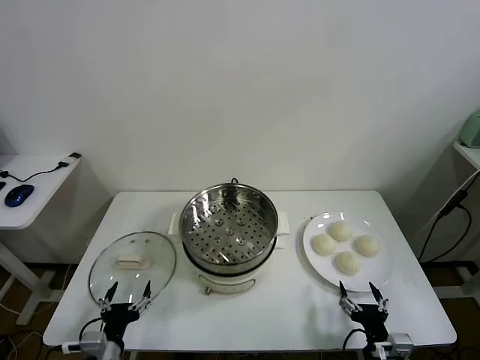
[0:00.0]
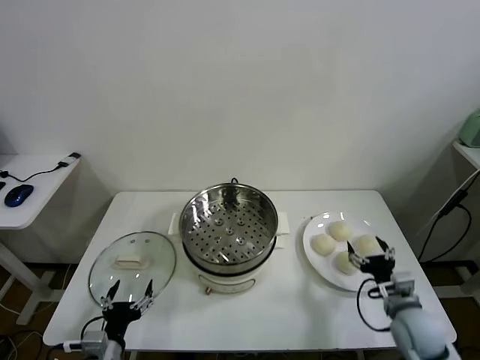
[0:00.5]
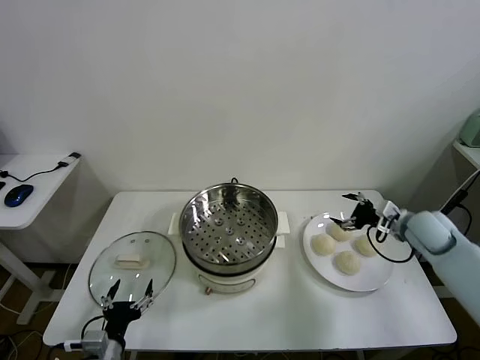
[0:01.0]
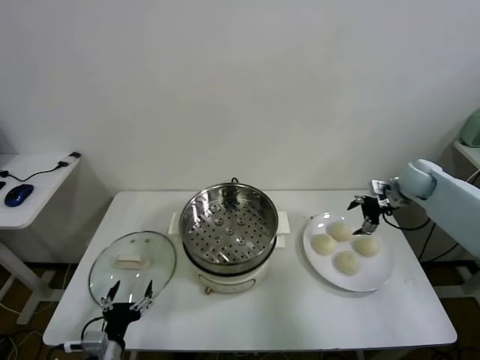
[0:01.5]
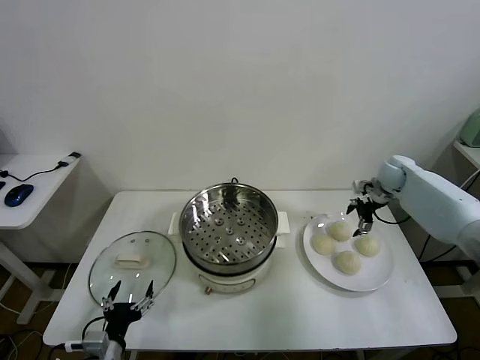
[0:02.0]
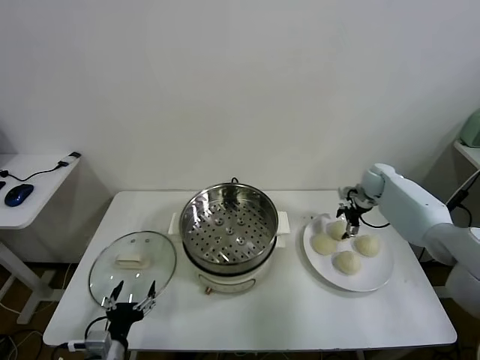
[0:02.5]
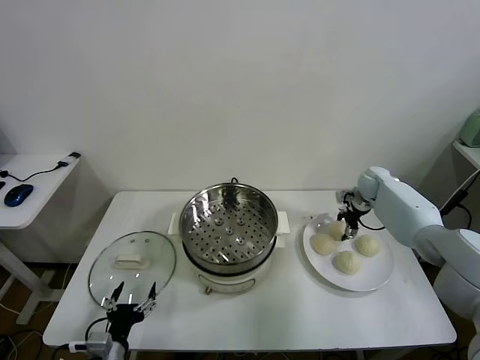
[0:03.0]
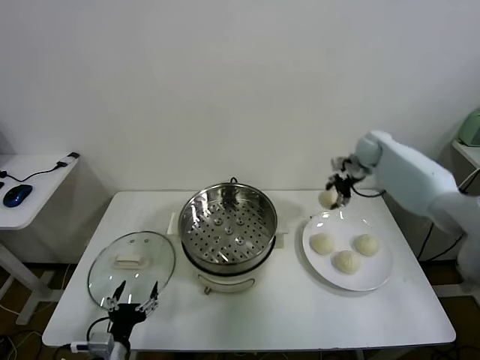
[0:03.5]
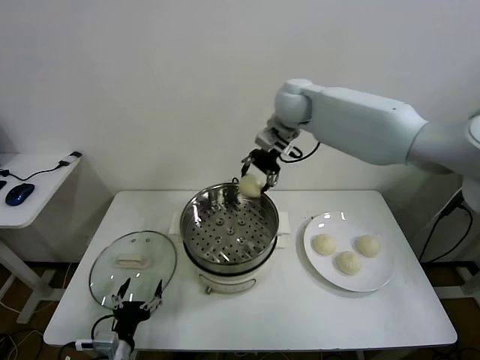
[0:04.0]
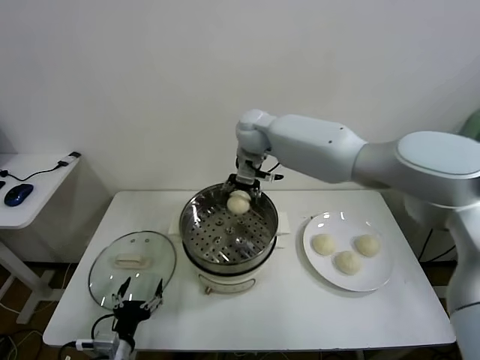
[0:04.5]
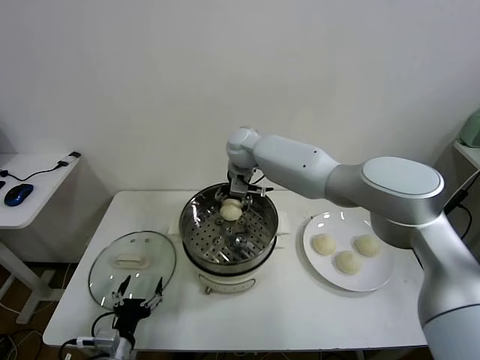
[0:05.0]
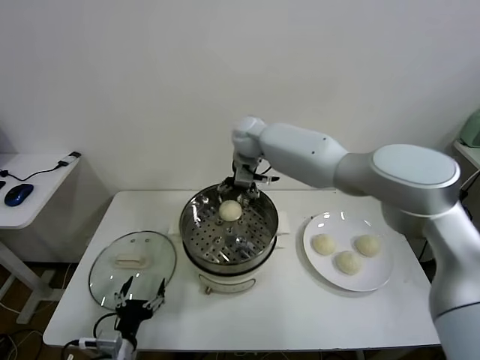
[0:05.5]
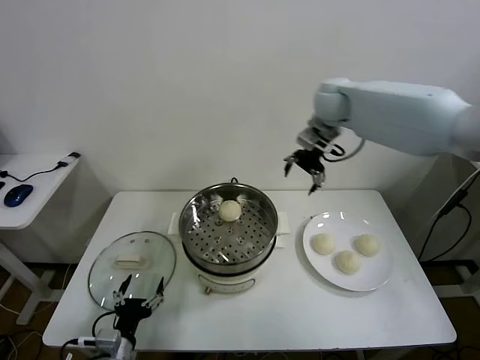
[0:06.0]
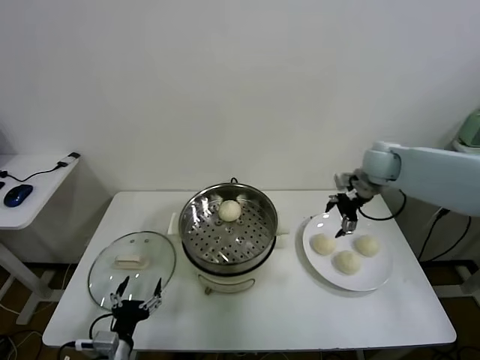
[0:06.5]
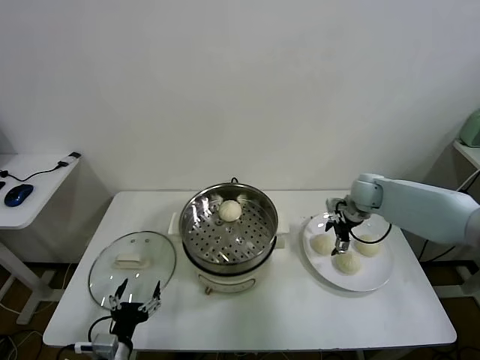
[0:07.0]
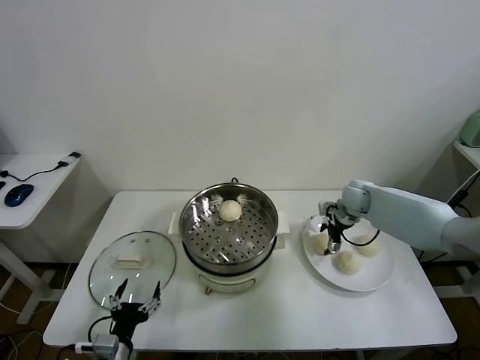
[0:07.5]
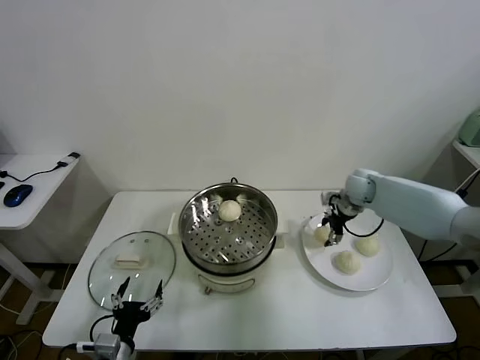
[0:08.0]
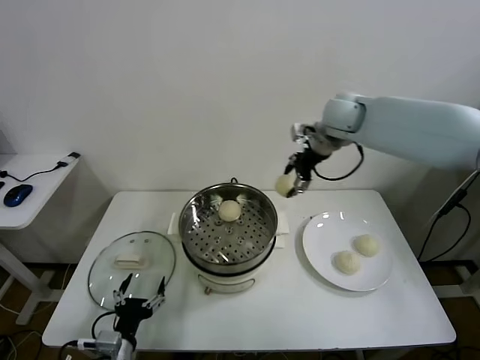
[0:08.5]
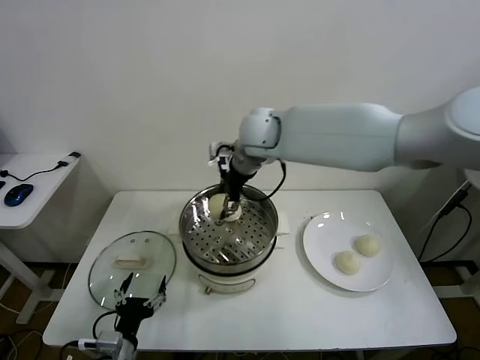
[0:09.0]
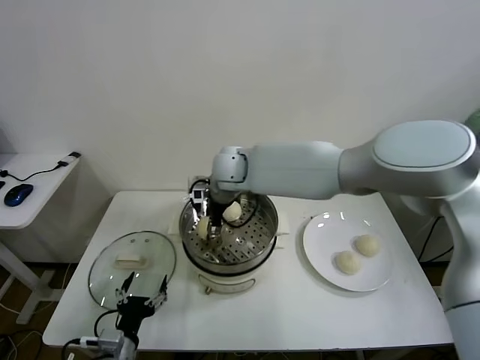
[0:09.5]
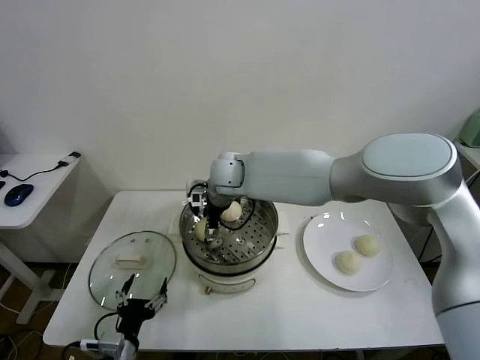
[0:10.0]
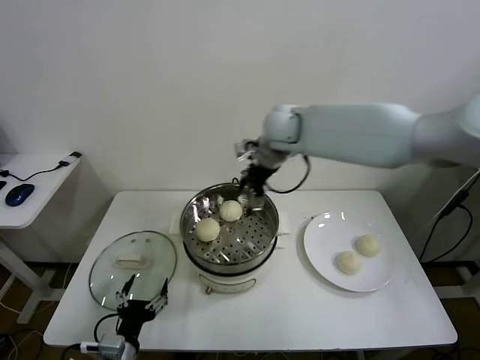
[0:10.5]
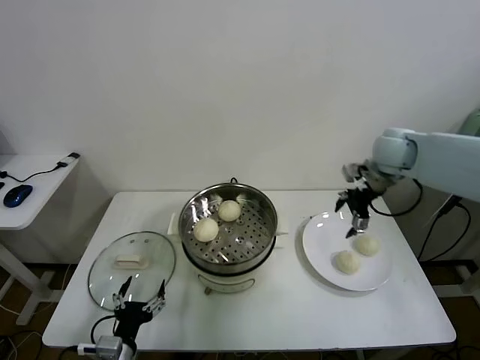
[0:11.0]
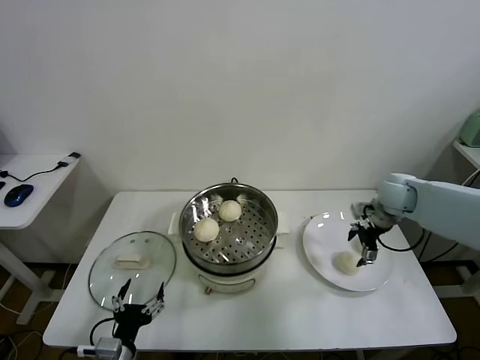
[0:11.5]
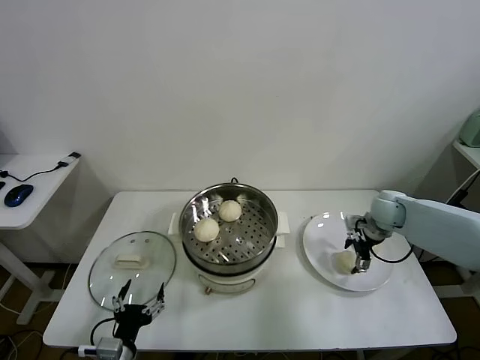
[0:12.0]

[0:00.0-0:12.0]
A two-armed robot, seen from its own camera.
Task of the whole recording: take steamed baozi put them in steamer.
Step, 0:00.0 to 0:03.0: Grasp the baozi in the plate with right gripper.
Step, 0:03.5 to 0:05.0: Place the baozi on the steamer with right gripper.
Step, 0:06.0 to 0:07.5: Grasp the baozi in the plate with right gripper.
Step, 0:08.0 to 0:10.0: Place the baozi on the steamer with right gripper.
0:02.0 to 0:04.0: The right gripper goes about 40 cm to the left and upward, and closes its fingers.
0:04.0 to 0:06.0: The right gripper moves to the right, roughly 15 cm, and opens.
0:06.0 to 0:08.0: The right gripper moves downward, about 20 cm, and closes.
0:08.0 to 0:10.0: The right gripper moves to the left, some 35 cm, and opens its fingers.
0:10.0 to 0:12.0: The right gripper shifts about 40 cm to the right.

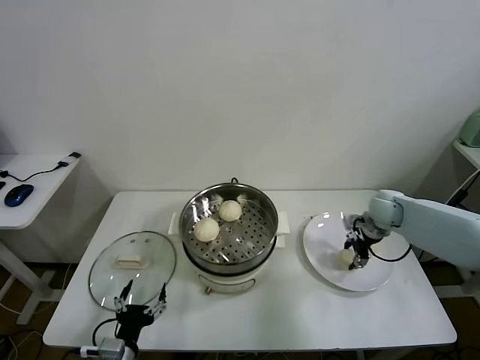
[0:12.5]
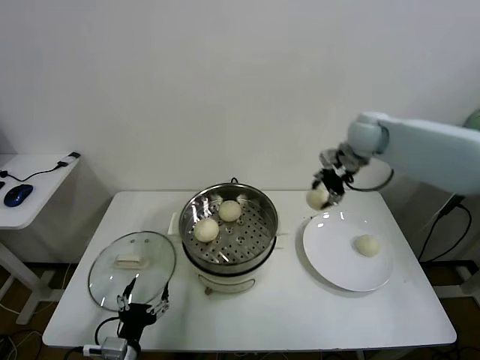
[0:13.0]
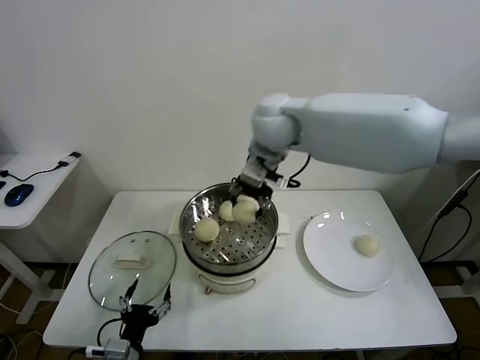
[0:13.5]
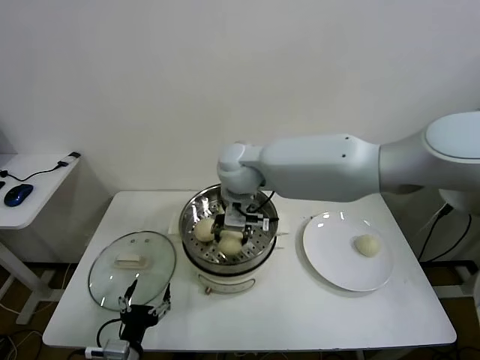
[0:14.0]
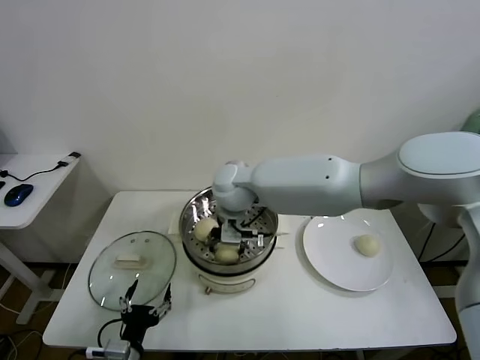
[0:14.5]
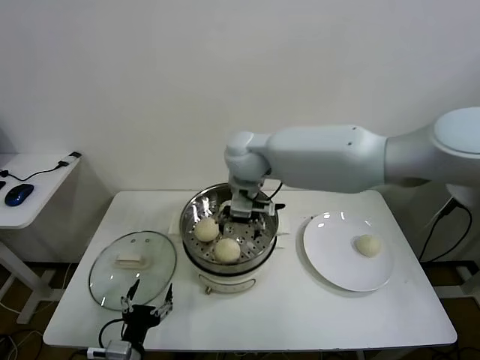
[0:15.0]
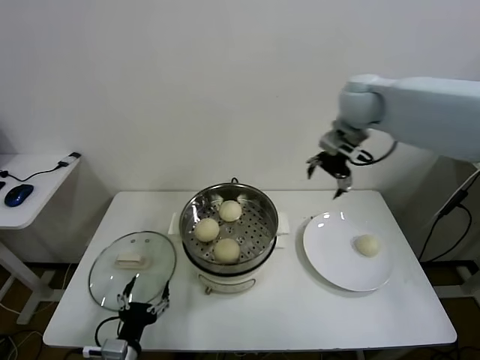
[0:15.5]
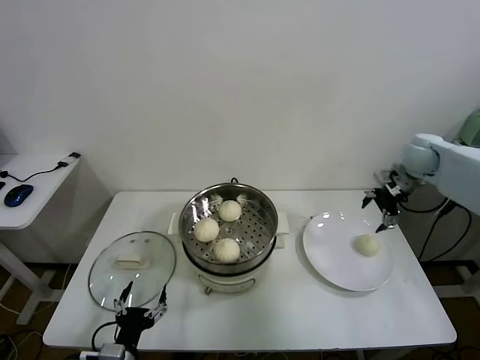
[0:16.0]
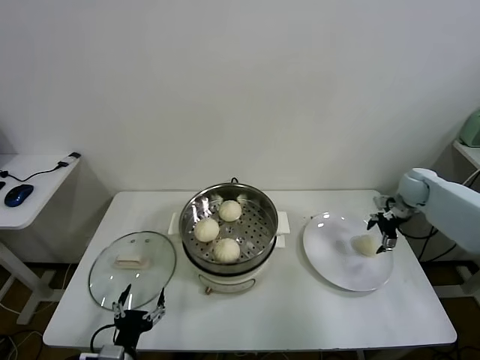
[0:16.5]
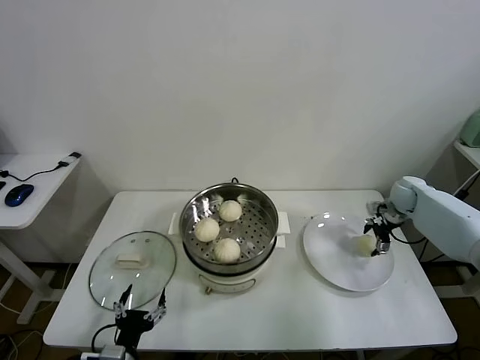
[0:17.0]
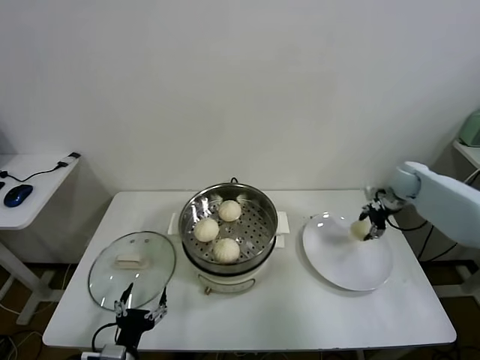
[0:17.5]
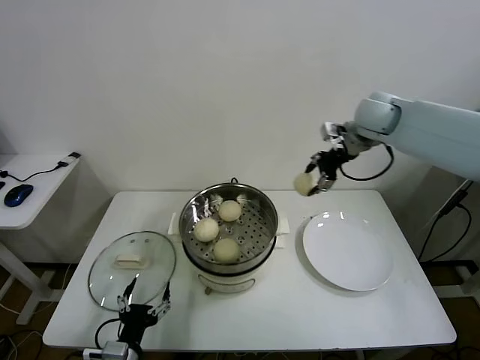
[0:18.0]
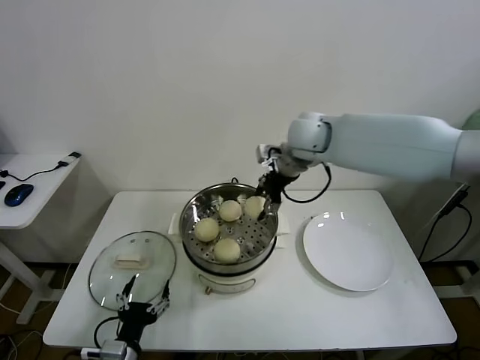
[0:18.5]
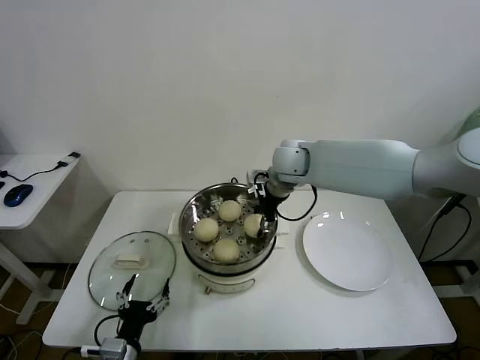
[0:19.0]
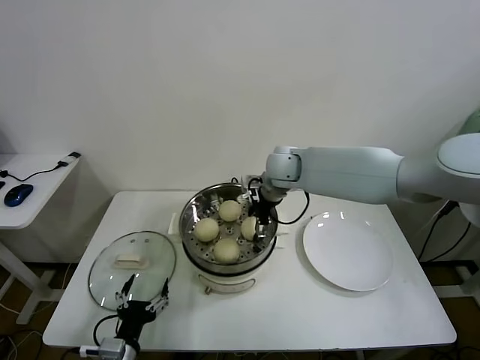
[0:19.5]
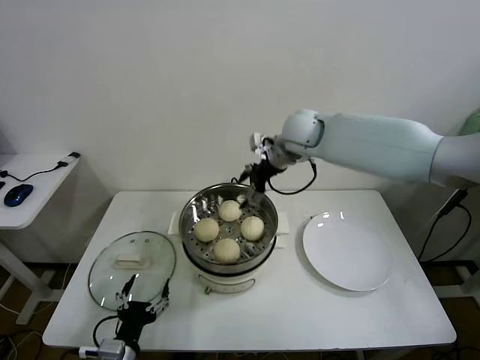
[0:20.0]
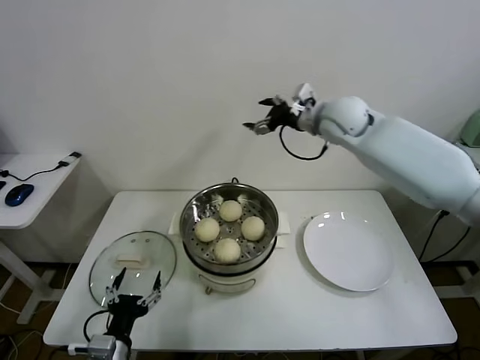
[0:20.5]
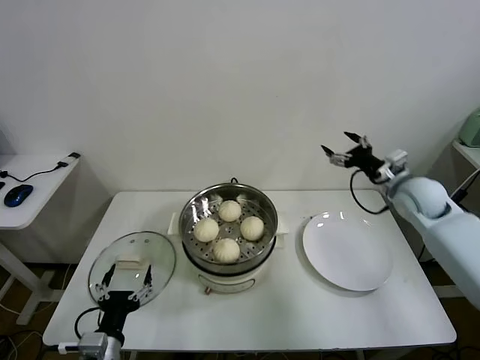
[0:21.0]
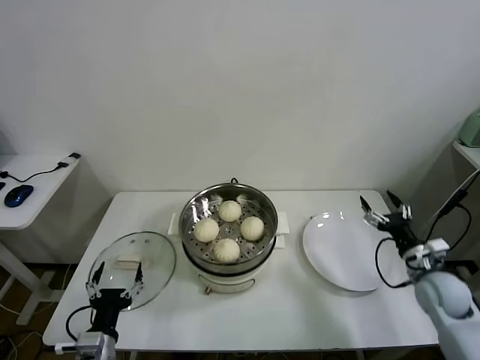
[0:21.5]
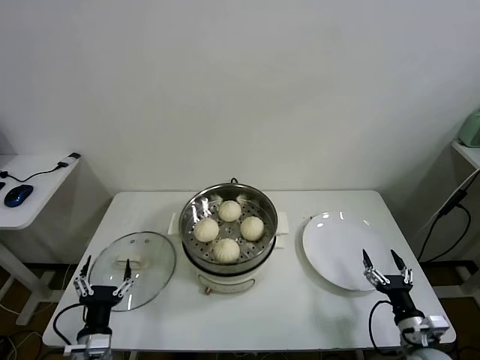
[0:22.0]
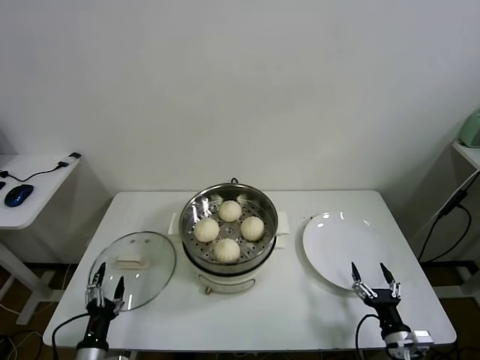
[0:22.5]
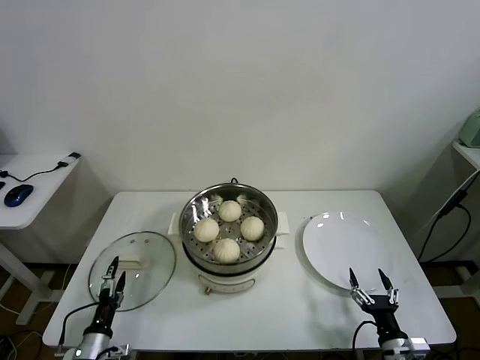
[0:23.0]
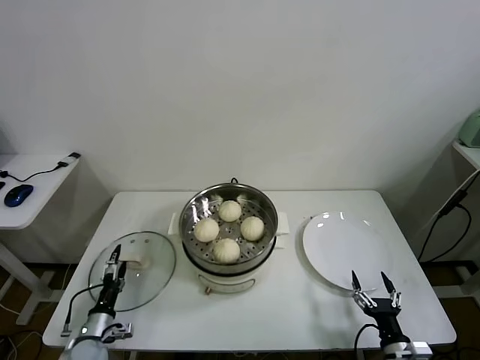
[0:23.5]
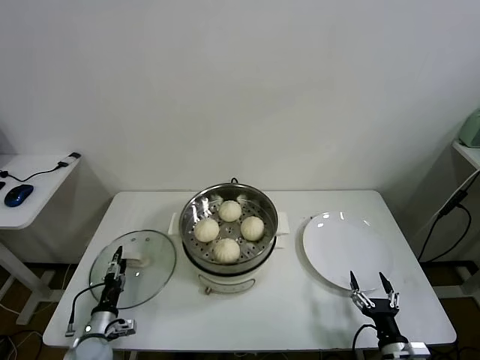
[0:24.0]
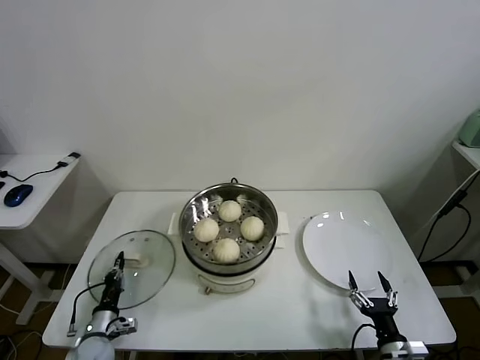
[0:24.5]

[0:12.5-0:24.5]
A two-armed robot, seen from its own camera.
Task of the whole recording: take steamed baozi put them in steamer.
Step, 0:12.5 to 0:14.5: Place the baozi on the steamer with right gripper.
Step, 0:15.0 to 0:17.0: Grasp the baozi in the plate with right gripper.
Step, 0:17.5 to 0:19.5: Place the baozi on the steamer with right gripper.
0:12.5 to 0:14.5: The right gripper goes about 40 cm to the left, and opens up.
0:14.5 to 0:16.5: The right gripper is displaced to the right by about 50 cm, and opens its fingers.
0:16.5 to 0:18.5: The right gripper is displaced to the left and upward by about 35 cm, and closes its fingers.
0:18.5 to 0:20.5: The right gripper shifts some 5 cm to the right, and opens.
0:20.5 to 0:22.5: The right gripper shifts some 60 cm downward and backward, while the left gripper heads downward and to the left, covering roughly 10 cm.
0:22.5 to 0:24.5: The left gripper heads forward and downward, covering approximately 10 cm, and closes up.

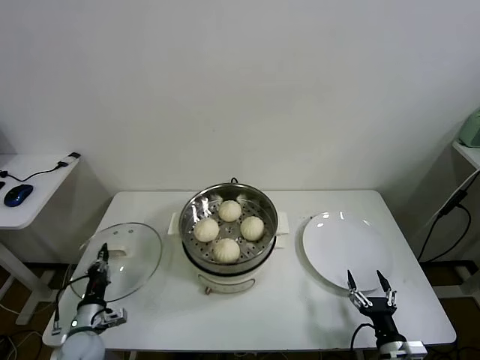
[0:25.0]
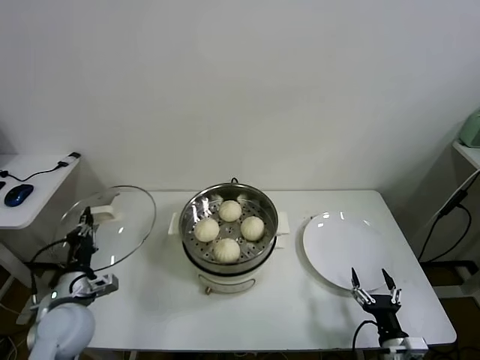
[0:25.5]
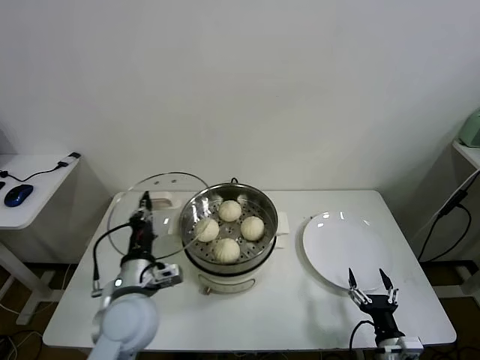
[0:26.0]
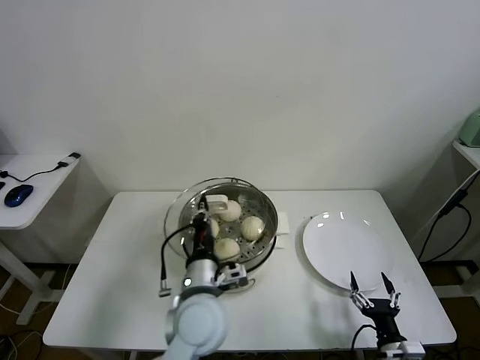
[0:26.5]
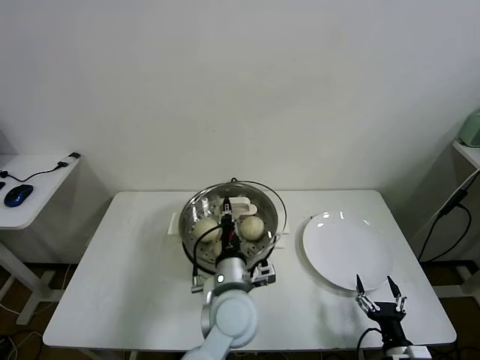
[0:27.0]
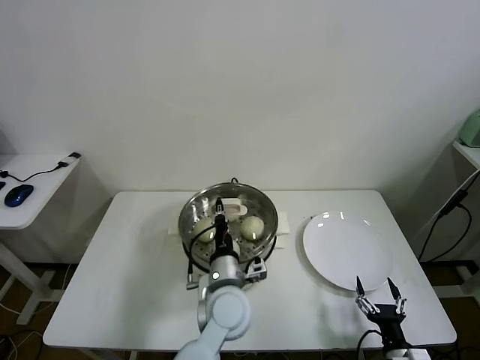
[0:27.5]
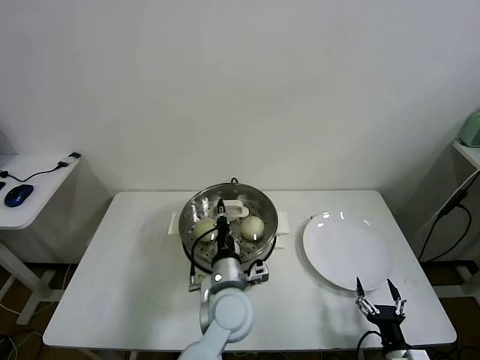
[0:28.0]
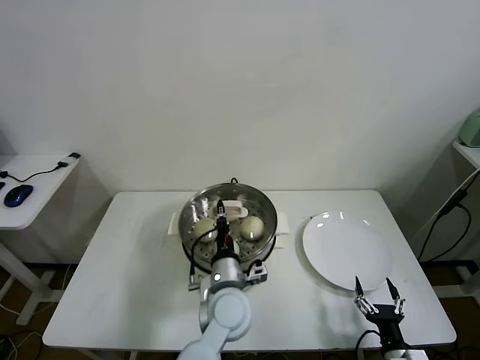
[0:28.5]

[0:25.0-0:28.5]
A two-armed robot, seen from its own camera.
Task of the whole recording: take steamed baozi put them in steamer.
0:25.0 to 0:27.0: The left gripper is displaced to the right and upward by approximately 40 cm.
0:27.0 to 0:28.5: The grippers stay close to where they were, moving slightly.
